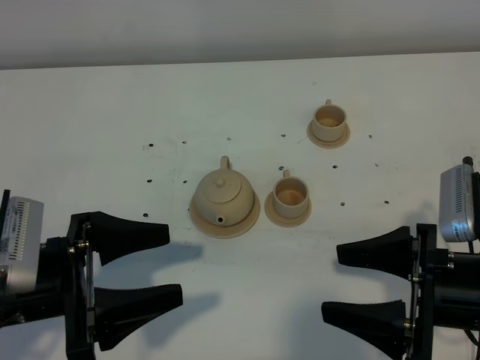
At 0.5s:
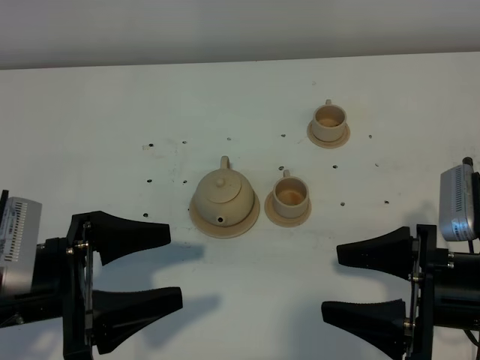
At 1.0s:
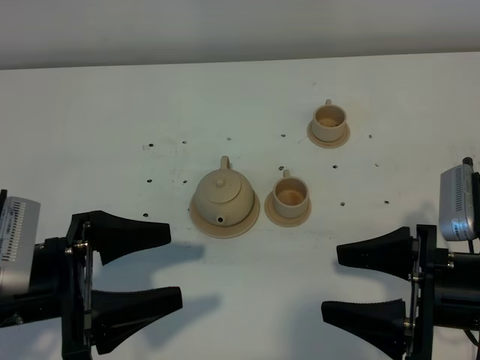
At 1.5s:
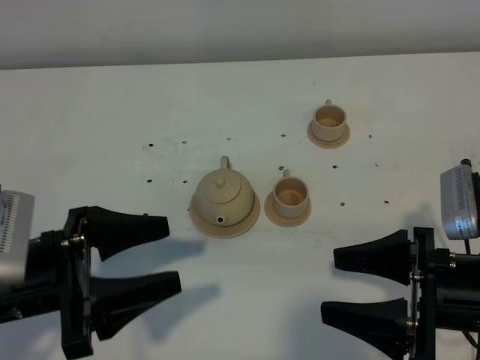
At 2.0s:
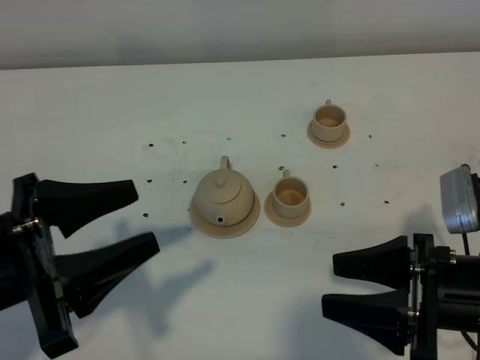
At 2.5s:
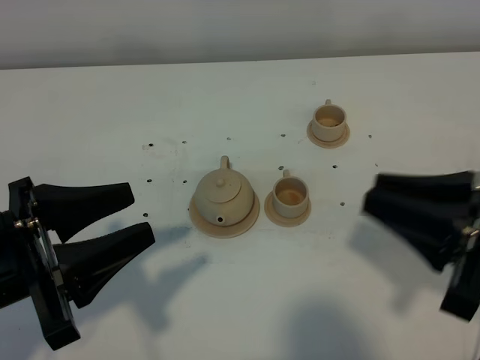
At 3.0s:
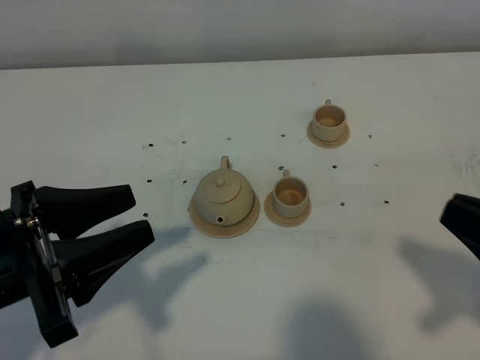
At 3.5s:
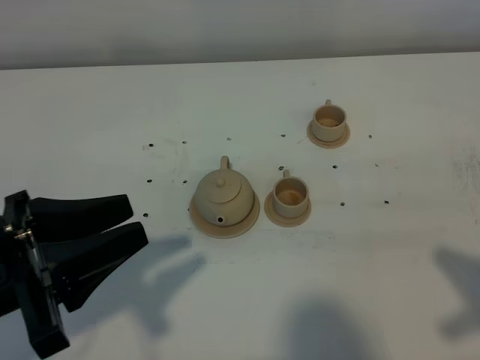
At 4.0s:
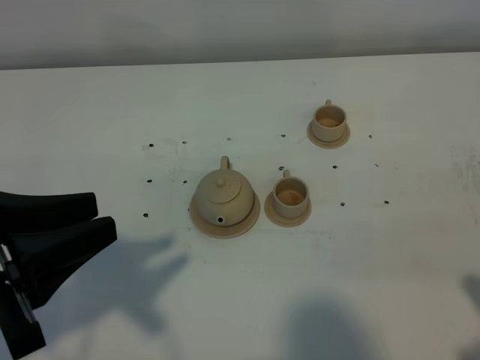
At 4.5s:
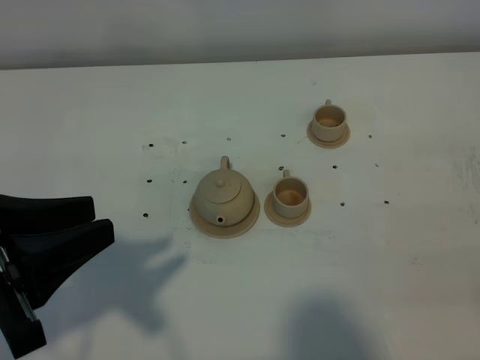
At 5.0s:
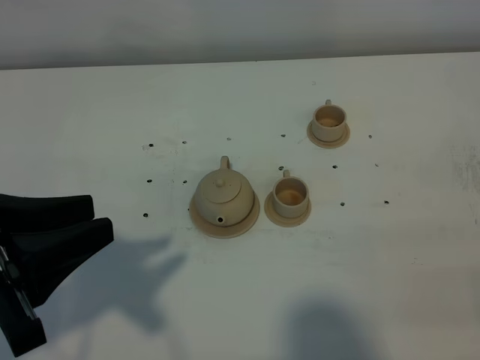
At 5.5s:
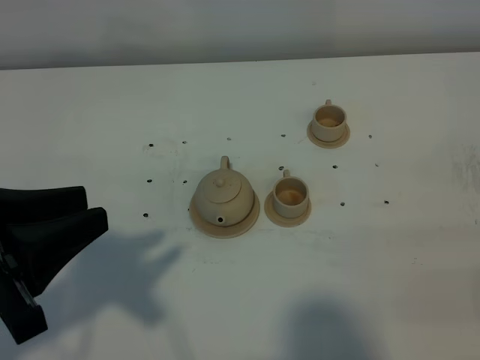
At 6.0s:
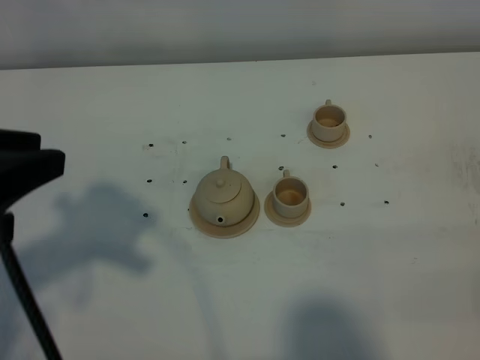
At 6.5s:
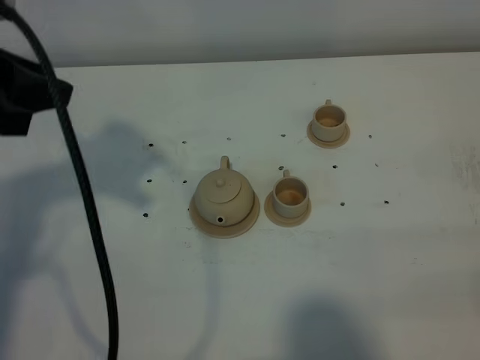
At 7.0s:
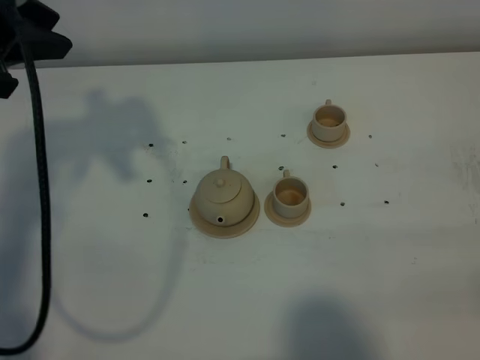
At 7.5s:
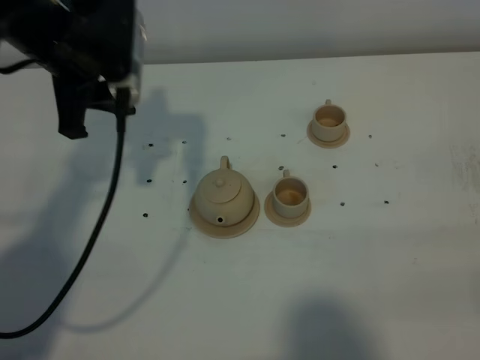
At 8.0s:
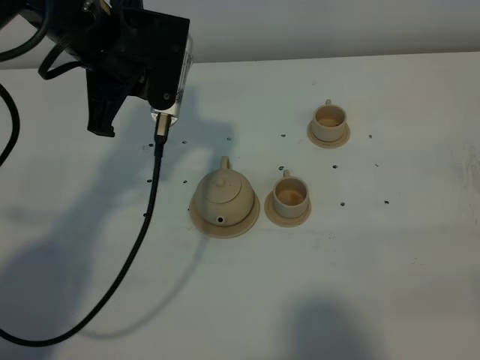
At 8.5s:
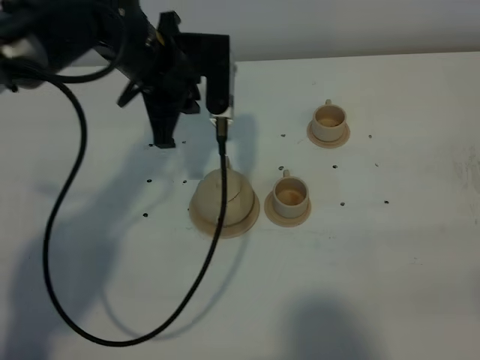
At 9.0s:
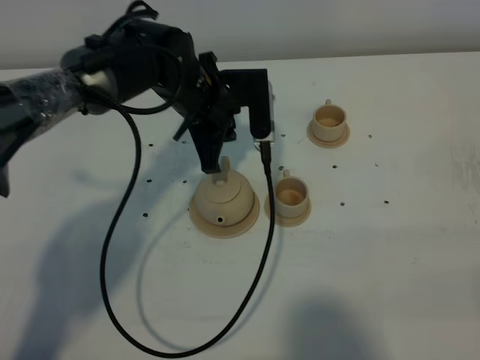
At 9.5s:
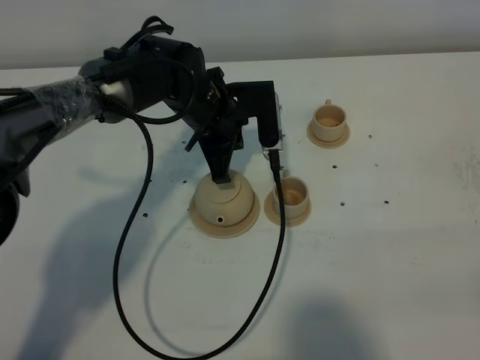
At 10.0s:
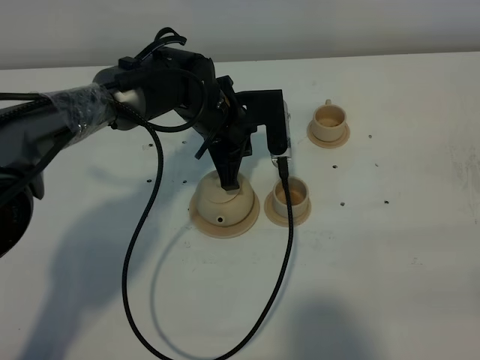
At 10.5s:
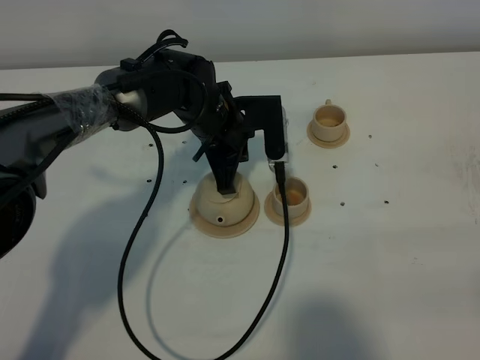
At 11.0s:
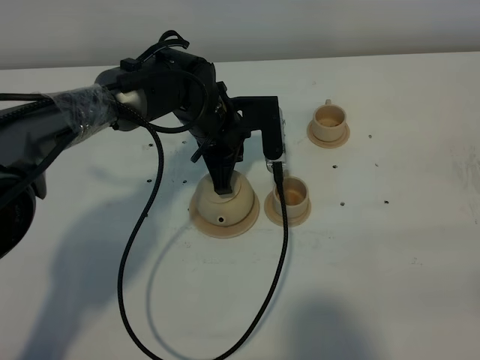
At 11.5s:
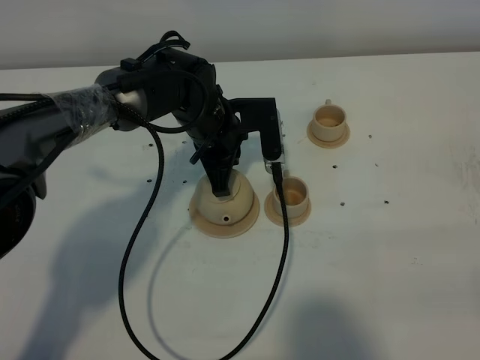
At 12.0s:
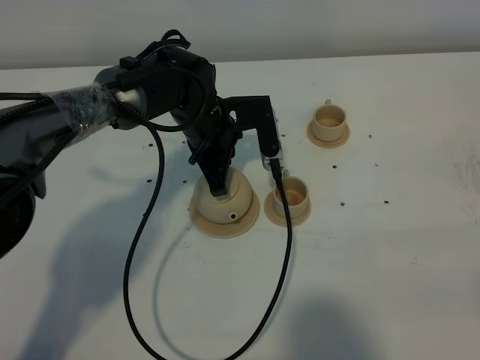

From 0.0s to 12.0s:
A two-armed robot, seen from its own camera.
Task of the whole recording: grasp the brown teapot and pour the tea into the two brown teacups one by one, put the brown teapot back in its original place.
From 0.0s to 2.0s: The left gripper goes some 5 cm upward.
From 2.0s to 4.0s: The left gripper is displaced upward by some 5 cm; the right gripper goes about 15 cm upward, backward and to the right, and closes its fingers.
From 4.0s to 6.0s: The left gripper shifts roughly 5 cm upward.
From 6.0s to 8.0s: The left gripper goes some 20 cm forward and to the right.
From 8.0s to 10.0s: The left gripper is displaced downward and to the right by approximately 20 cm.
From 10.0s to 12.0s: The grippers stay close to where they were, moving slightly.

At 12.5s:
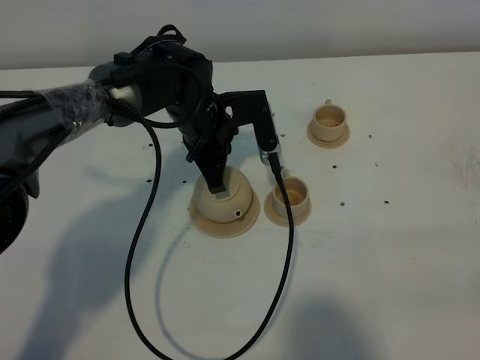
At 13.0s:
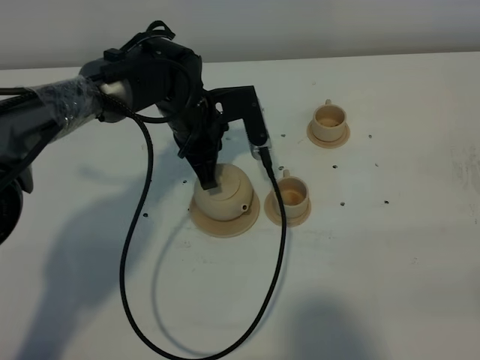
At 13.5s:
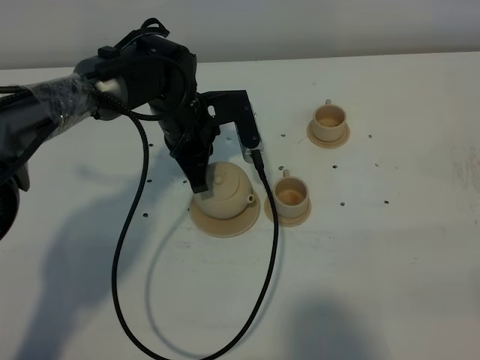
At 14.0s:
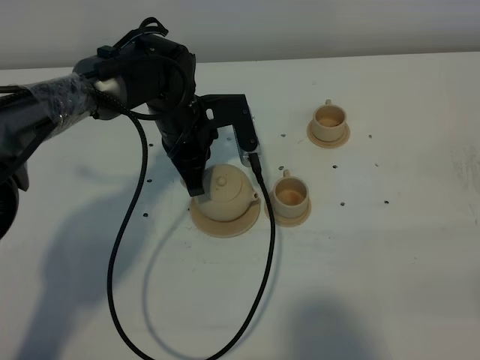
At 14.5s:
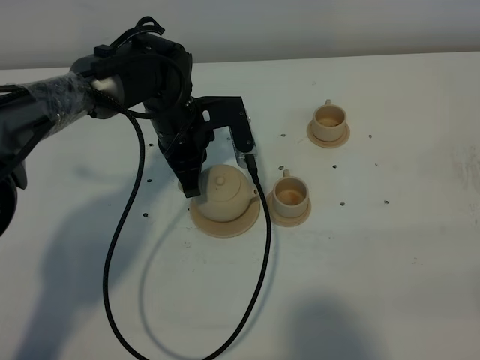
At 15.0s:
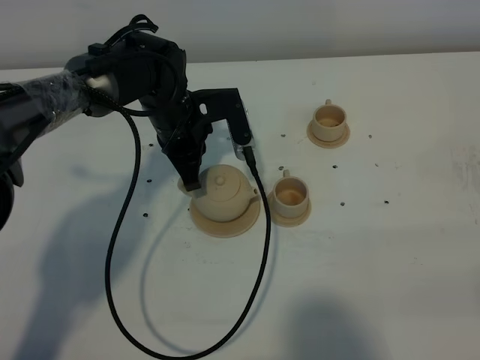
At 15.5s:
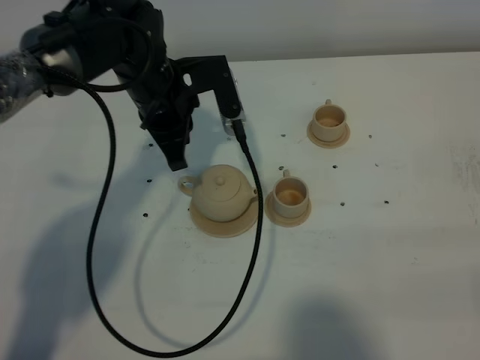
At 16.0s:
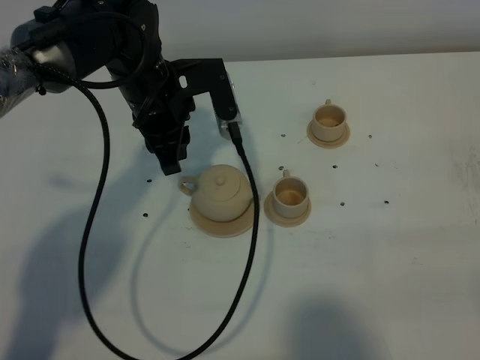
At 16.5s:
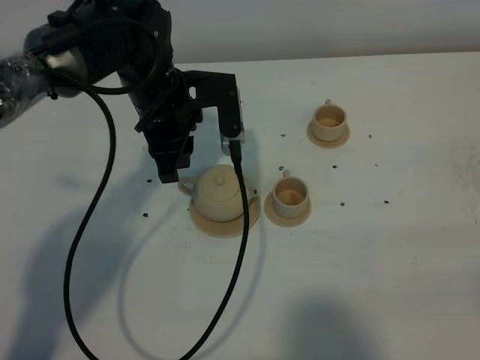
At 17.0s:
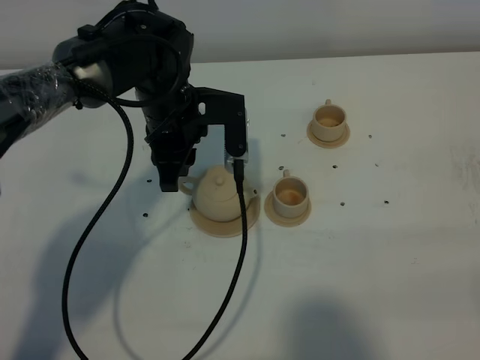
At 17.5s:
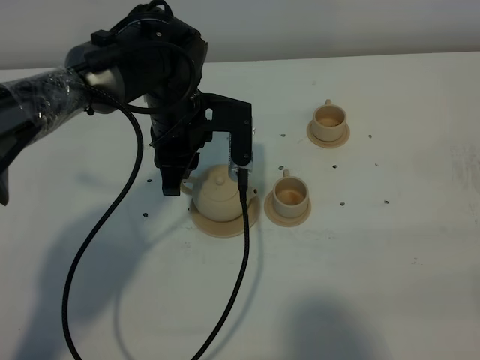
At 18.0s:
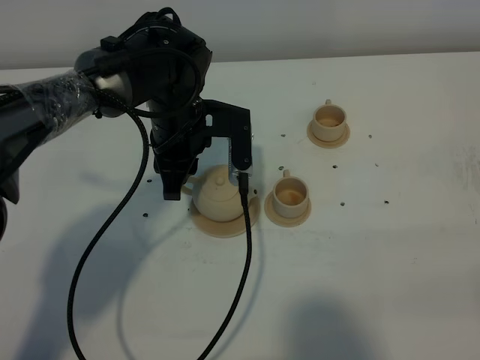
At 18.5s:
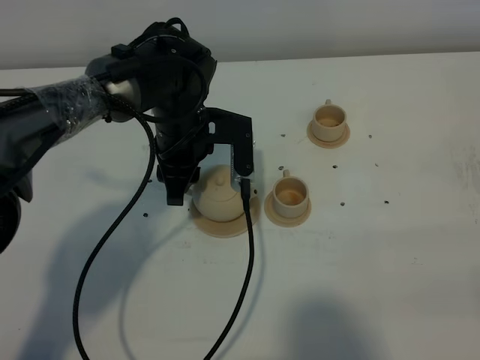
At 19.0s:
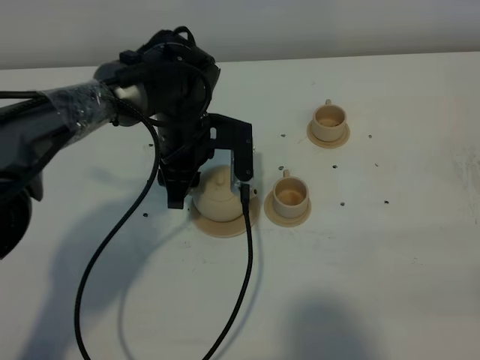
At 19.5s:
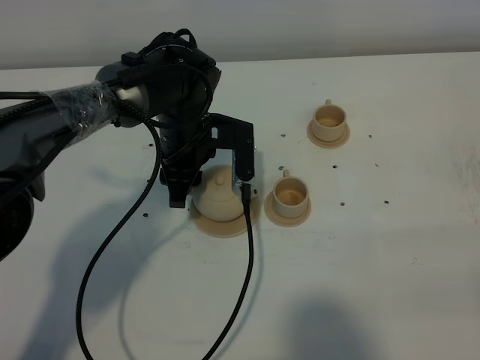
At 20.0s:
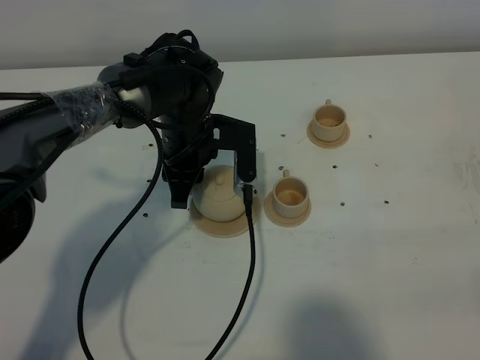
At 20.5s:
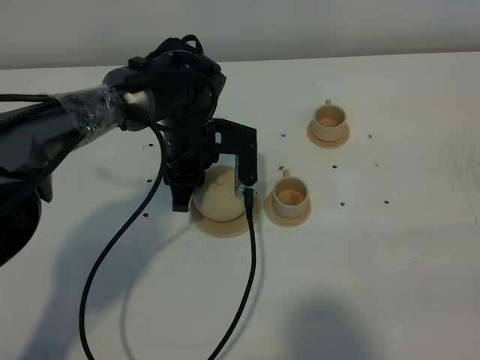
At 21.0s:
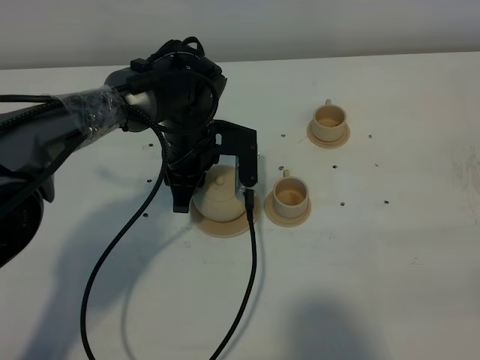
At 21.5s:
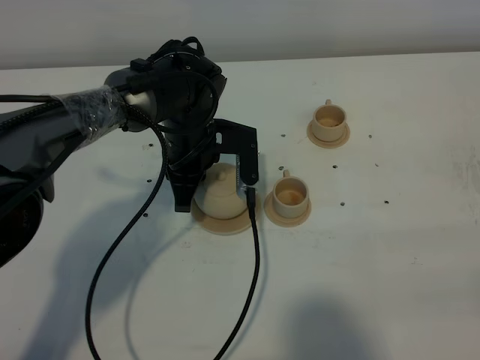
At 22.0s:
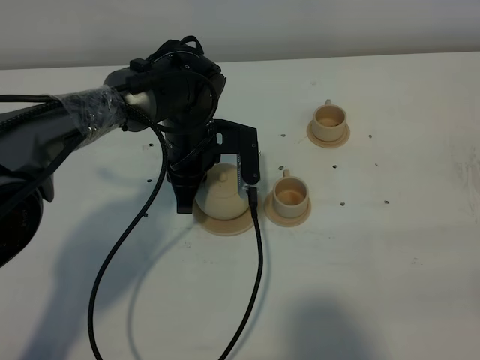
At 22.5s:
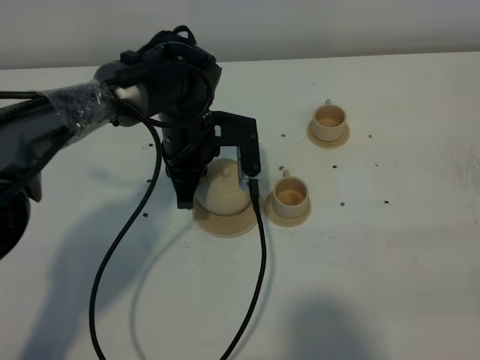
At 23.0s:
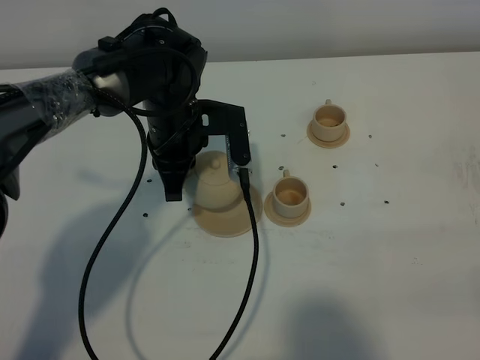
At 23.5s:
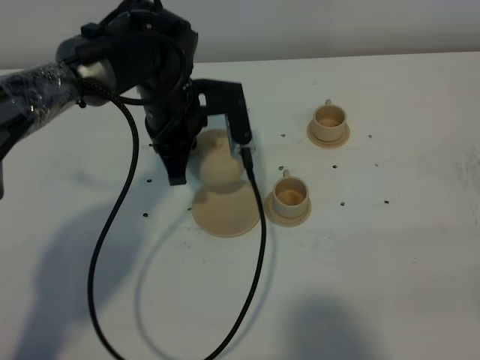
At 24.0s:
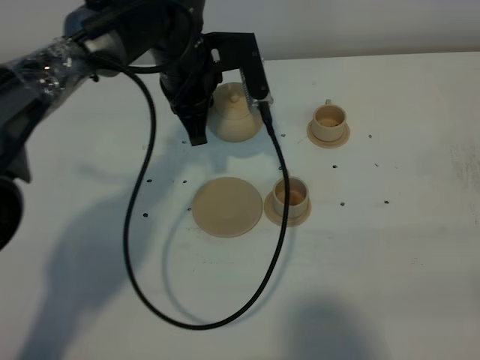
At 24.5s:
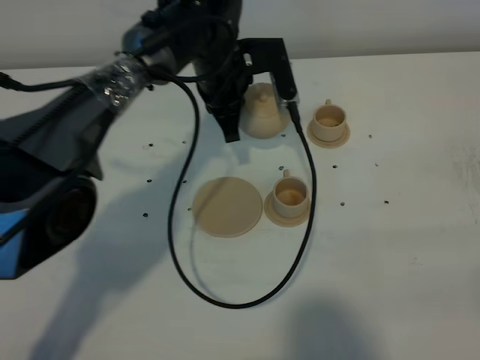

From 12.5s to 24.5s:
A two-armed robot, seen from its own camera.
Task of the whole recording: grasp the brown teapot and pour the tea into the two brown teacups one by one, put the brown teapot back in its original place.
Step, from 12.5s to 22.5s: Pick up the teapot with the left gripper.
From 12.5s to 14.5s: The grippers move only a little.
From 14.5s to 16.5s: The left gripper is displaced upward by some 5 cm, and opens.
From 18.5s to 22.5s: The grippers make only small movements.
From 22.5s to 24.5s: The left gripper travels forward by some 5 cm.

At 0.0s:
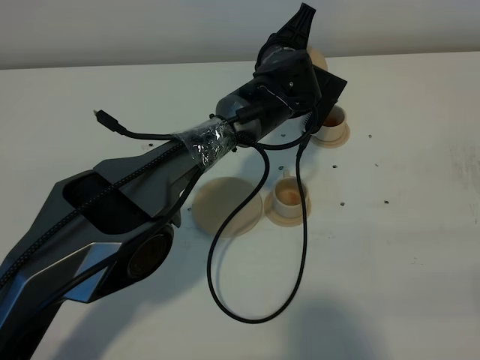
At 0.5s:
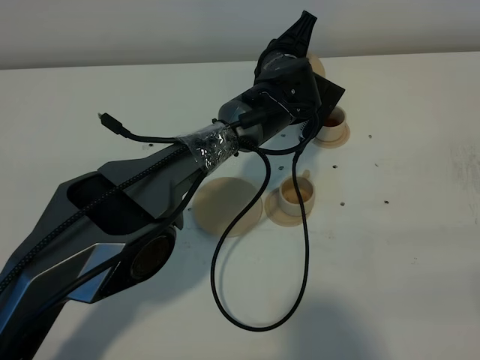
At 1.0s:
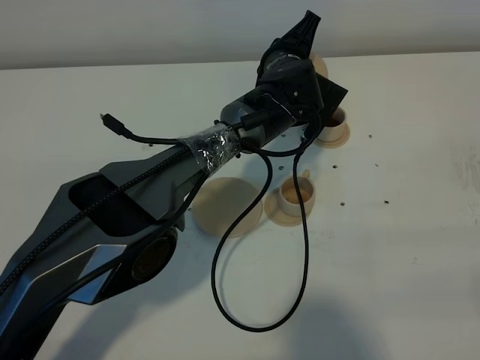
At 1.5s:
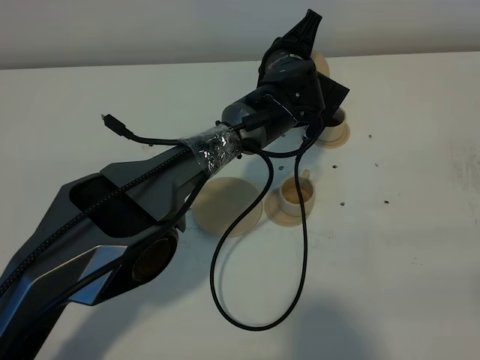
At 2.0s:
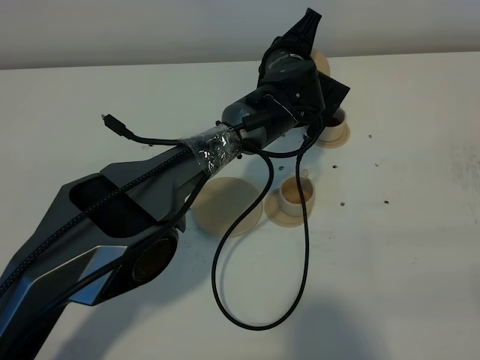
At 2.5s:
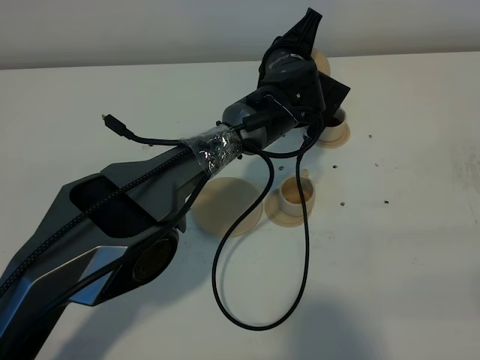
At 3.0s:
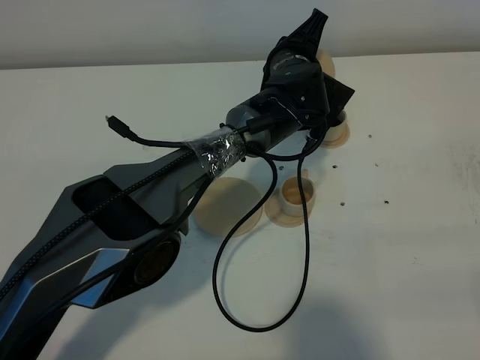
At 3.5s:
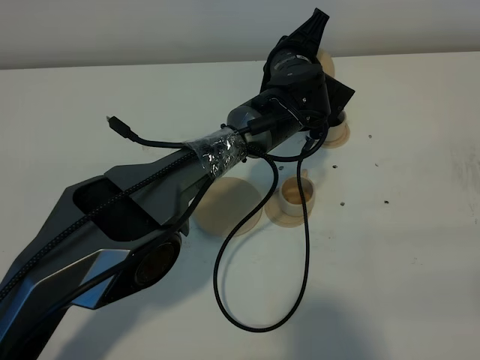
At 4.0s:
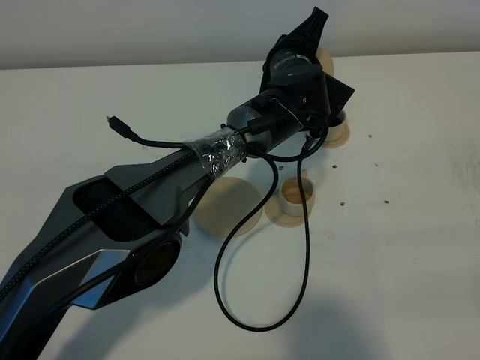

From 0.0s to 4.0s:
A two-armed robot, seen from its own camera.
Task of the whole recording: grasp the brown teapot and pour the tea into the two brown teacups one by one, put the brown teapot back in its original place.
From 0.0s to 2.0s: Both grippers stay put.
From 2.0s to 4.0s: Both grippers stay about where they are.
